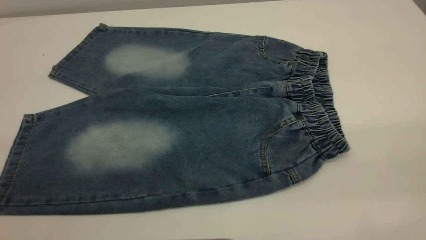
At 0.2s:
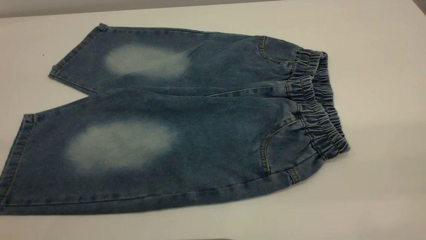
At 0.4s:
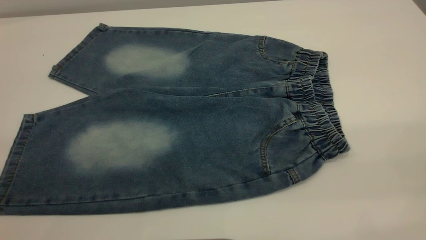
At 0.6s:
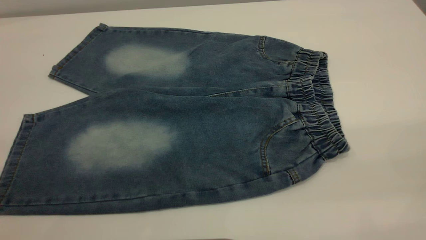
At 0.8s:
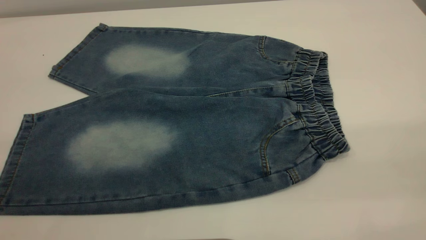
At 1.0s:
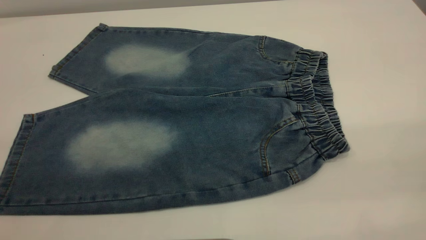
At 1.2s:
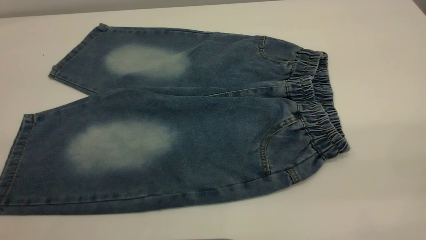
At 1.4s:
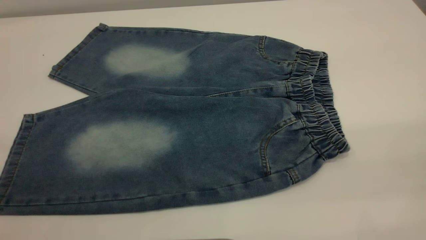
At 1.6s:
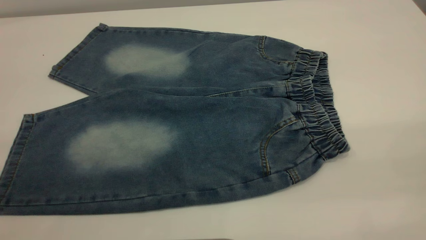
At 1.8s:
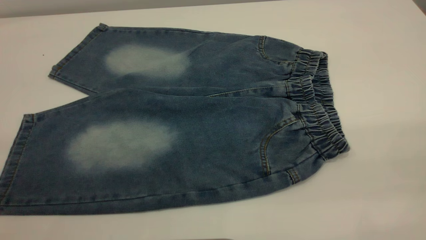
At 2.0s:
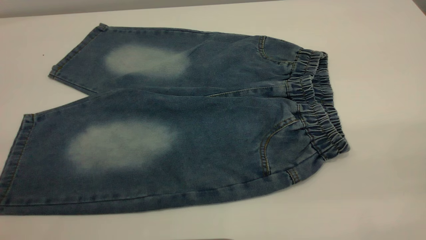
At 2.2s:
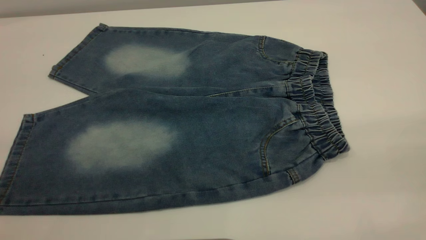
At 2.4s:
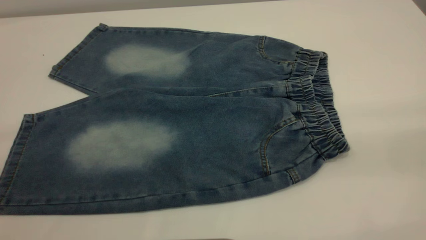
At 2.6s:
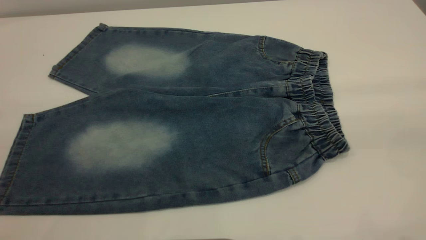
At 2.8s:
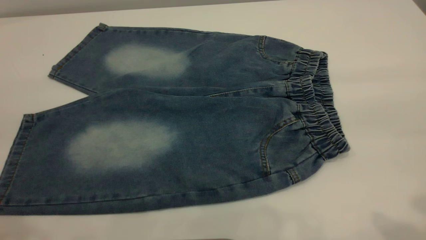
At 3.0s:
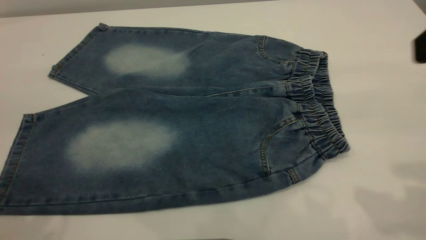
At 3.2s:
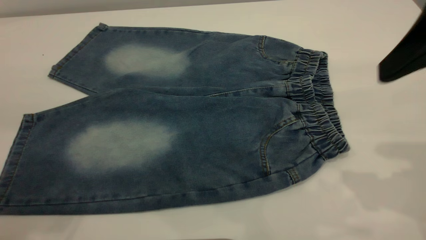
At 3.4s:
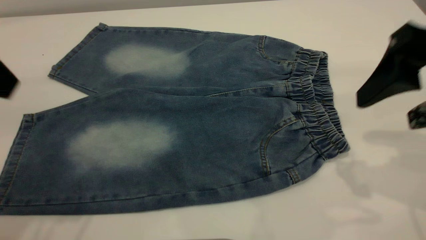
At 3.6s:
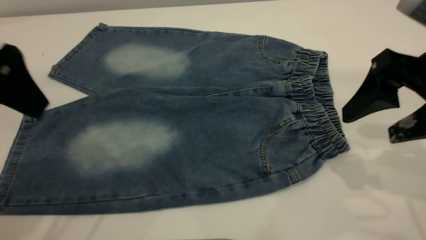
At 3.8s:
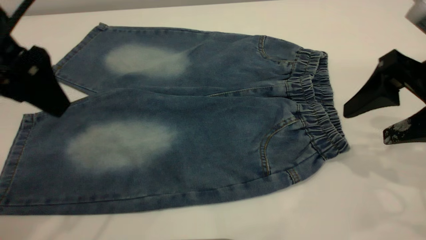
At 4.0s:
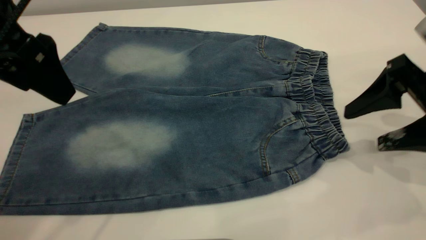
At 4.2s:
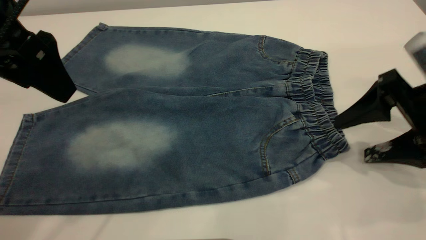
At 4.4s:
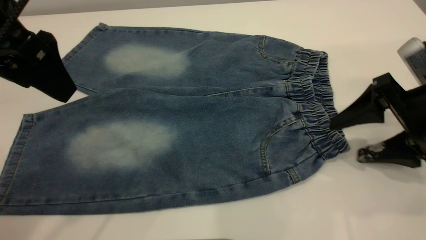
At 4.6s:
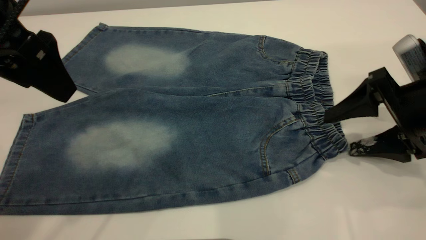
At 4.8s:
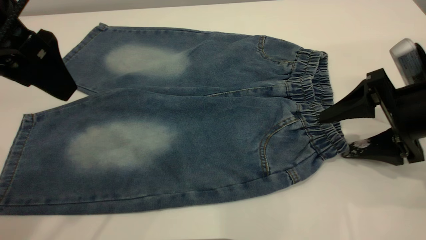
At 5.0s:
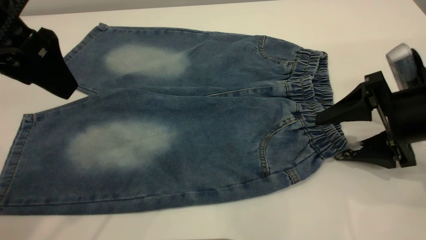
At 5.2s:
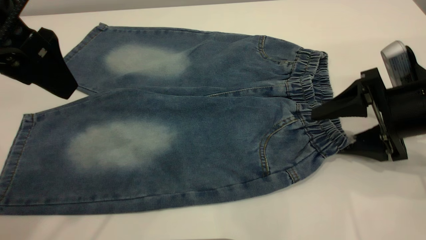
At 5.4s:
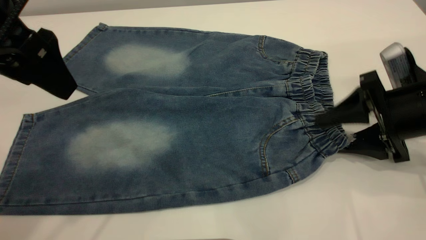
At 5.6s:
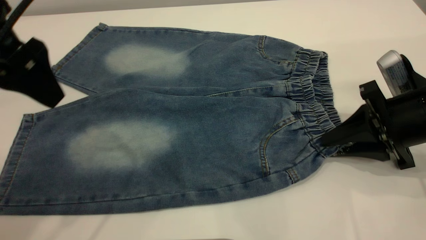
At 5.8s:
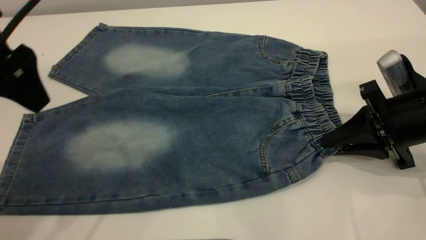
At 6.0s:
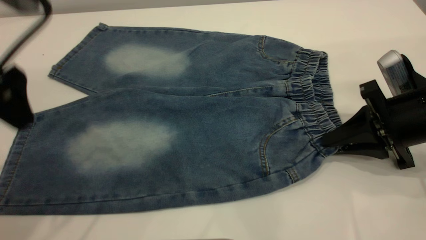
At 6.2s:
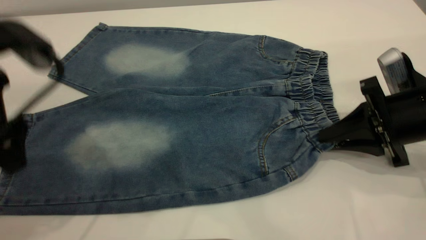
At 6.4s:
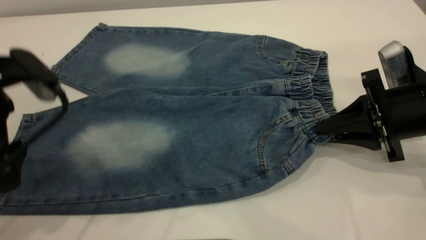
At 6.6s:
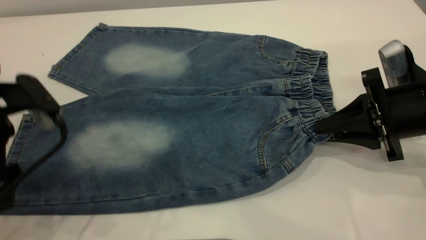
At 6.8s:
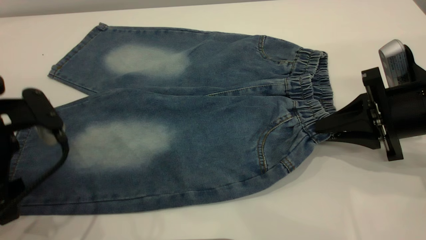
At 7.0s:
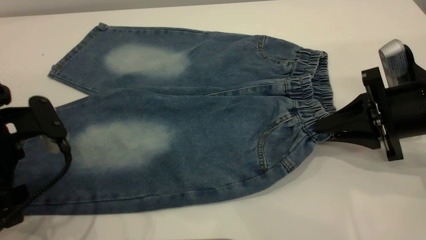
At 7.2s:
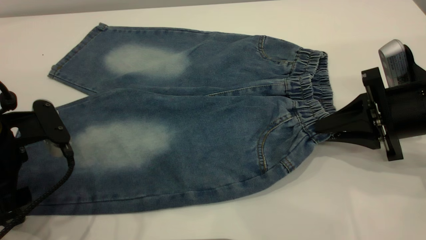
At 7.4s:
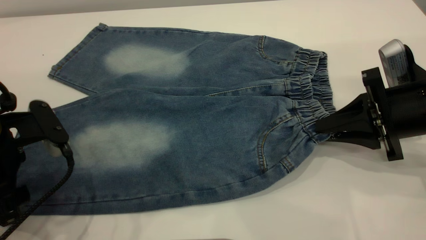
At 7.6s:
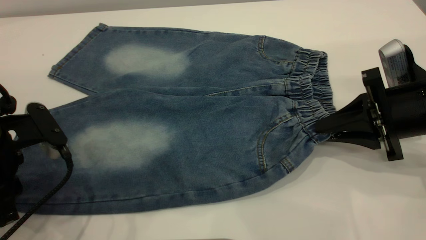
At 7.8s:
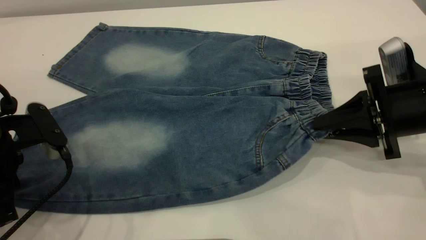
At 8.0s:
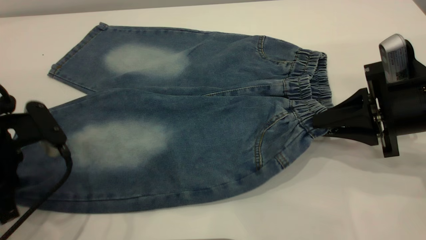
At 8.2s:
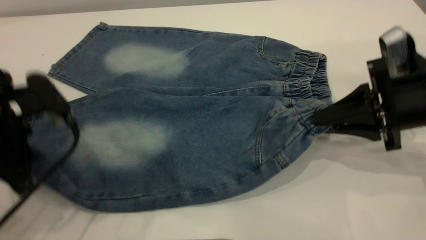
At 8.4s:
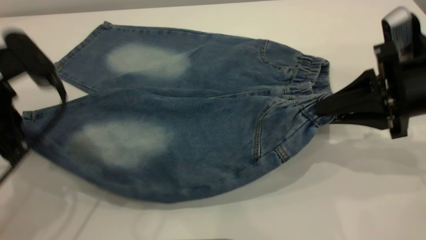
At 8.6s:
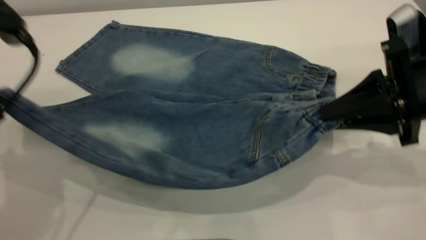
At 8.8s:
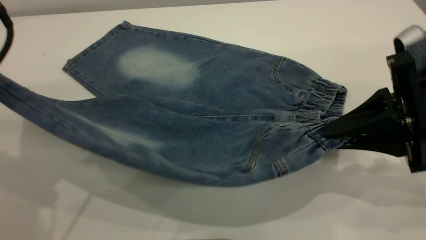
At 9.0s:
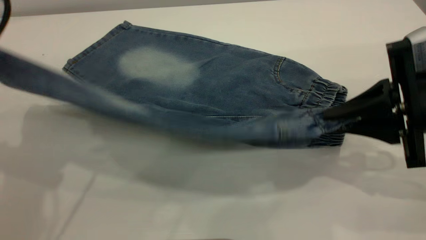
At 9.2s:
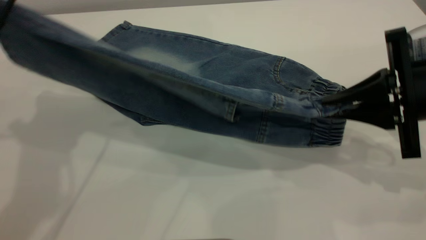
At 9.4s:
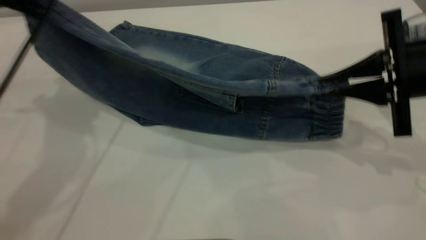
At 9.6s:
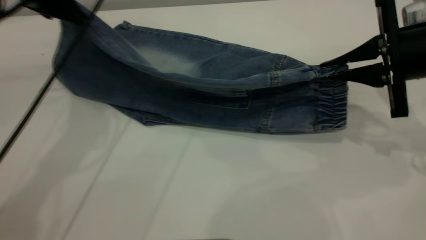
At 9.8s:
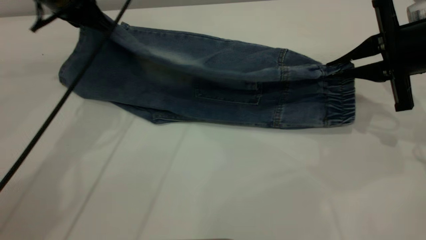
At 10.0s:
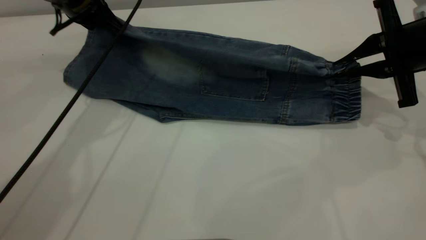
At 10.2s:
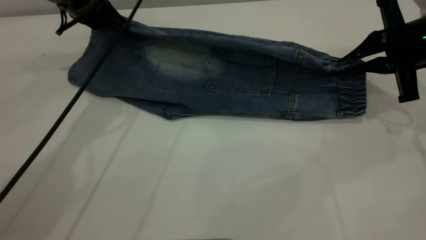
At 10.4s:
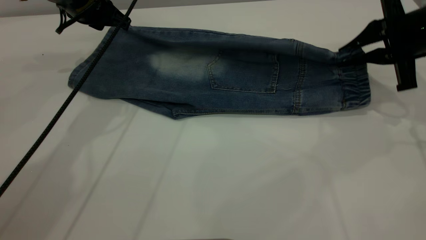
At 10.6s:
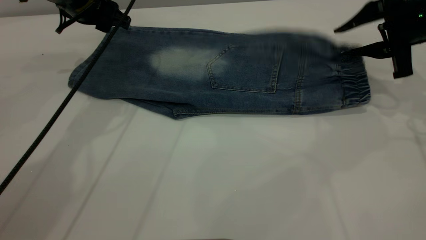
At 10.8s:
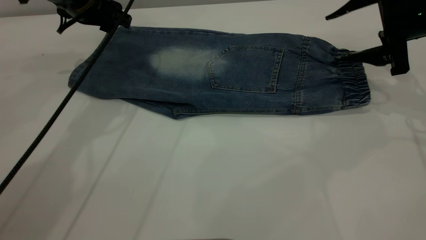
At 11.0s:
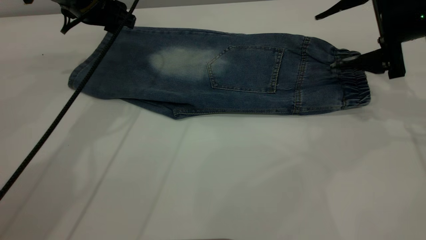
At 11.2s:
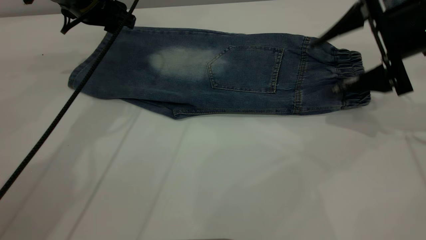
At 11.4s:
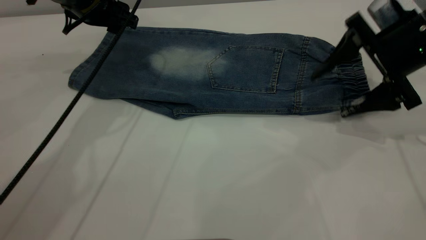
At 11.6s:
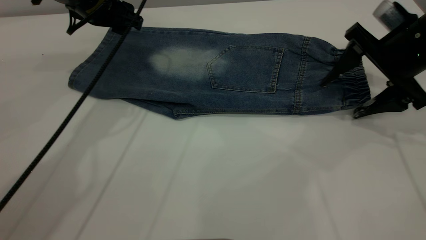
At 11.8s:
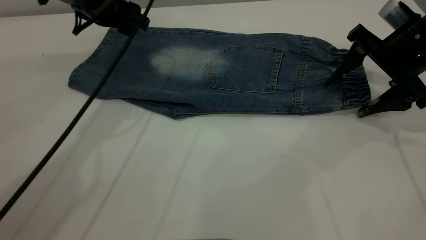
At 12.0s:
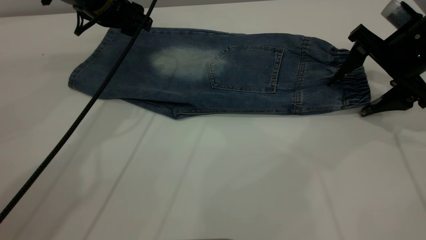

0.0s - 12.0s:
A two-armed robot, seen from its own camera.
Step, 0.0s - 10.8s: Fold the bottom of the pants upward.
0.0s - 1.6s: The two grippers keep their place.
1.6s - 3.0s: The right gripper shifts some 15 cm forward.
3.0s - 4.4s: The right gripper heads downward and forward, covering some 20 cm. Meanwhile the left gripper heads forward, downward and to the right, covering about 15 cm.
4.4s - 6.0s: The right gripper closes its fingers.
6.0s - 7.6s: The left gripper moves downward, roughly 15 cm, and closes up.
7.6s - 9.0s: The right gripper shifts by about 5 cm. Meanwhile the left gripper moves upward, approximately 15 cm.
9.0s - 10.4s: The left gripper is displaced forward and downward by some 25 cm, and opens its fingers; the right gripper heads forward, covering roughly 15 cm.
10.4s - 12.0s: The left gripper opens up; the right gripper opens its fingers.

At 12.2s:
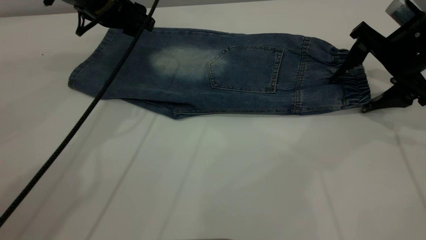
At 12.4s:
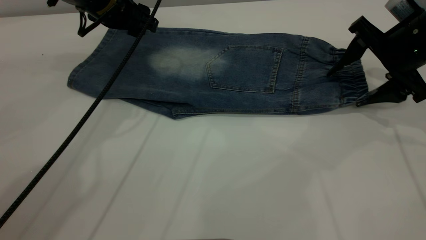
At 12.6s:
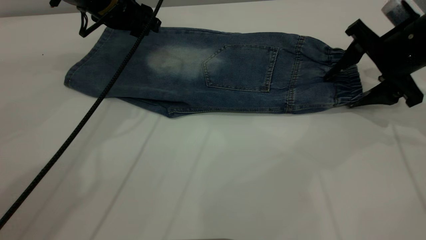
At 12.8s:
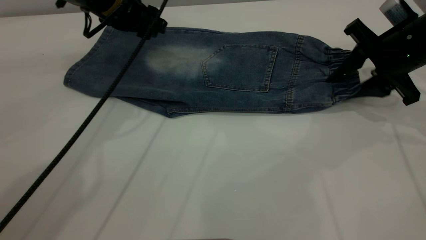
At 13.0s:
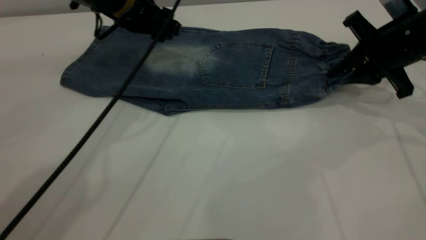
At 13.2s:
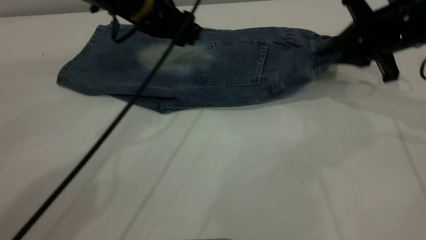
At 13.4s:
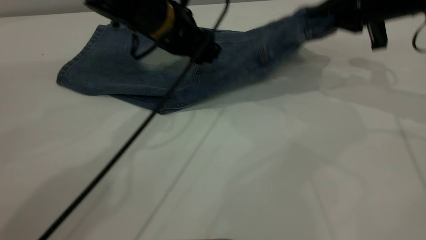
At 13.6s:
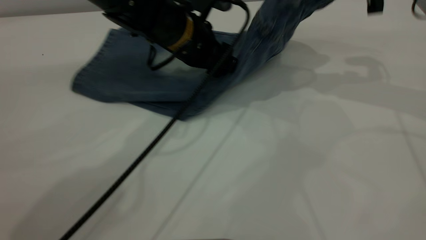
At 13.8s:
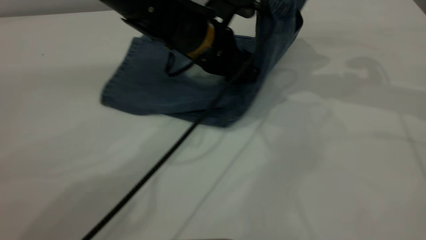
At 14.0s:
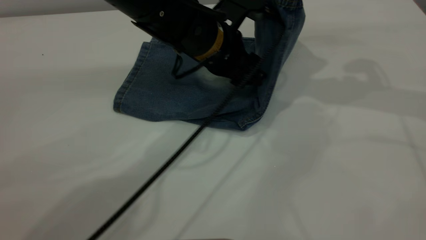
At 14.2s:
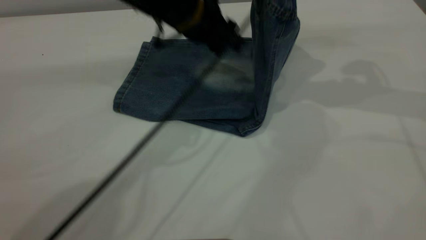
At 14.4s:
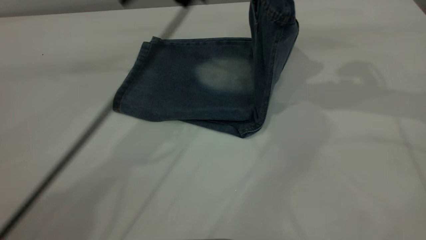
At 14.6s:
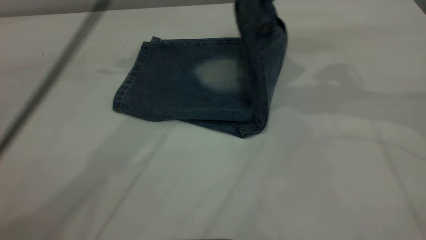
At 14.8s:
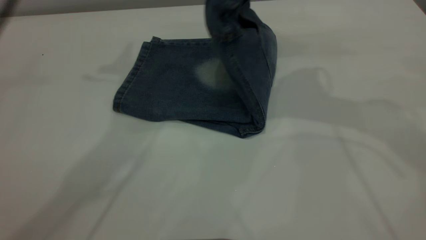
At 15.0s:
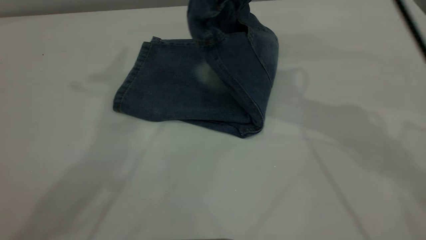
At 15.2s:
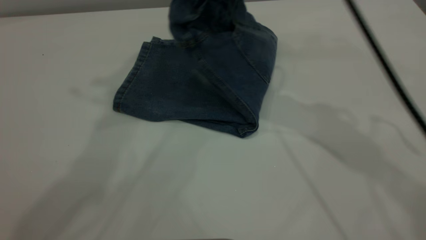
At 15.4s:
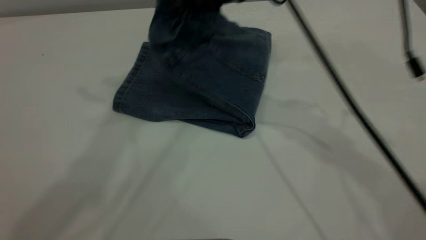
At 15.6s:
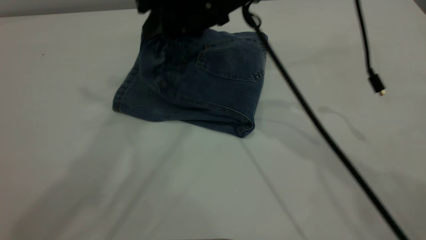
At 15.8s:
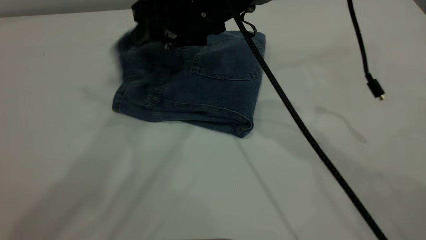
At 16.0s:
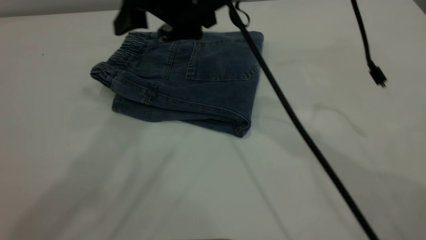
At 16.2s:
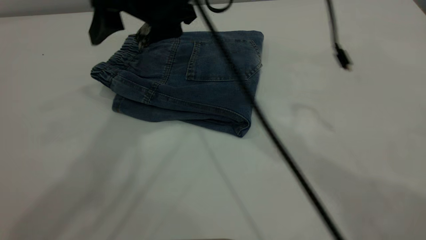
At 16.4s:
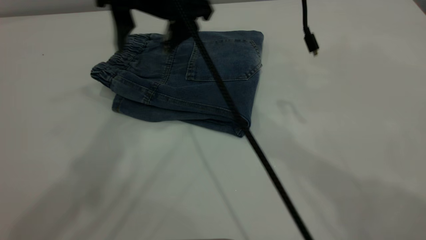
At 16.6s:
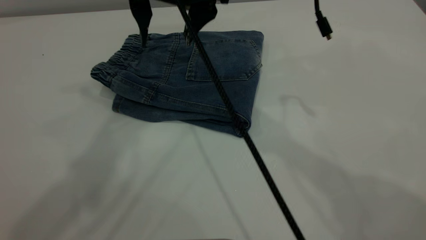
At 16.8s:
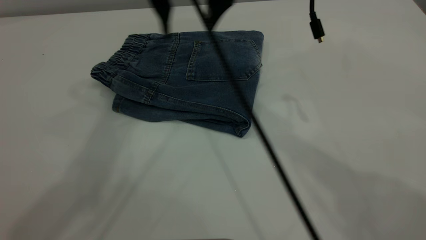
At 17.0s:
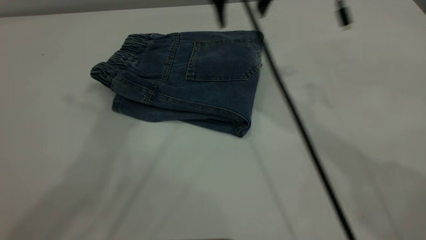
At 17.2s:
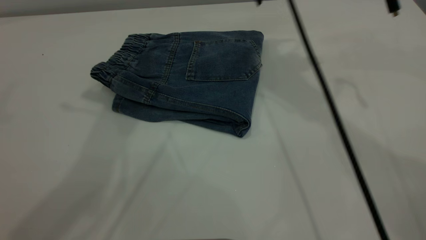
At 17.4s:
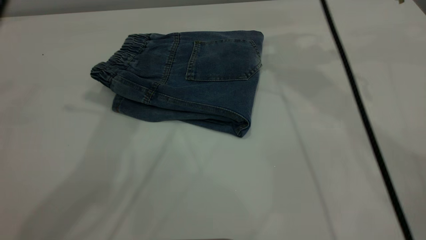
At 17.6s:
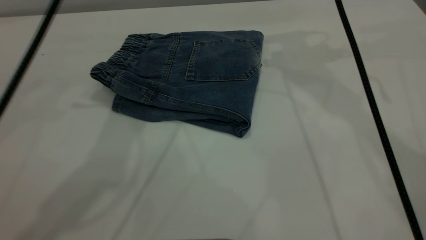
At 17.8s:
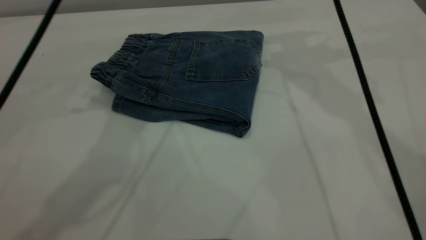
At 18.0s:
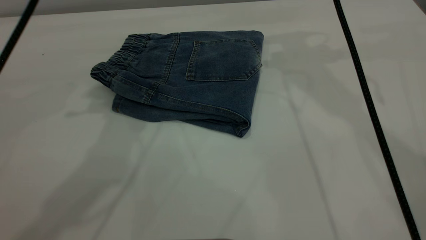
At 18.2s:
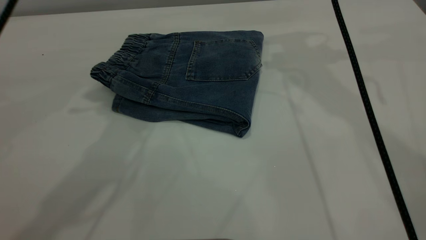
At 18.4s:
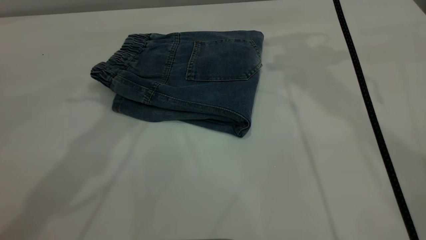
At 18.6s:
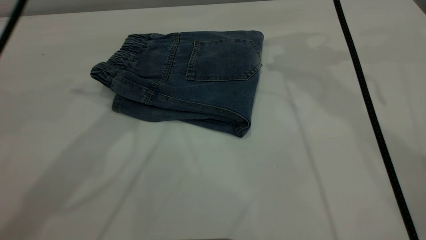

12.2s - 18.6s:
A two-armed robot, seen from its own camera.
Step, 12.2s - 17.2s: Fold your pants from right to left.
12.2s - 13.8s: The left gripper travels to the right and backward by some 15 cm; the right gripper is displaced upward by about 15 cm, and closes.
13.8s - 15.4s: The right gripper travels to the left by roughly 20 cm. Meanwhile the left gripper goes roughly 35 cm upward.
15.4s - 17.0s: The right gripper travels to the left and back again, roughly 5 cm each way, and opens its fingers.
17.0s - 18.6s: The right gripper is displaced to the right by about 10 cm; the left gripper is displaced downward by roughly 15 cm.
